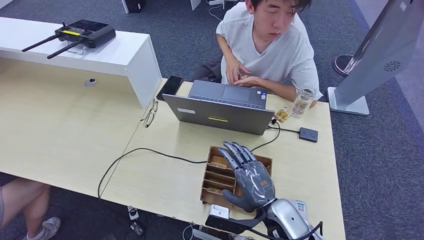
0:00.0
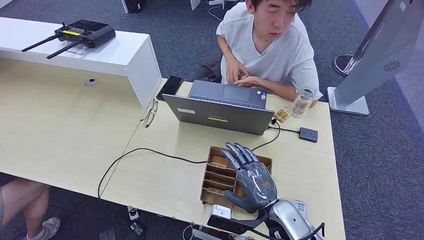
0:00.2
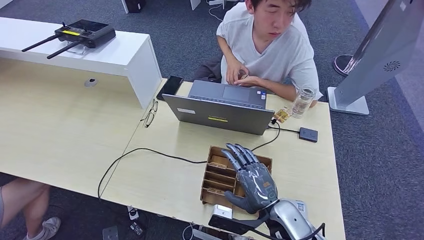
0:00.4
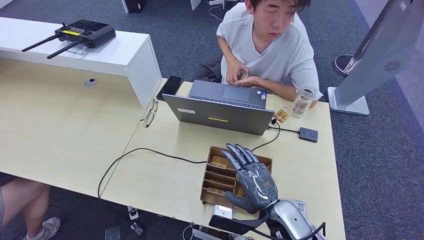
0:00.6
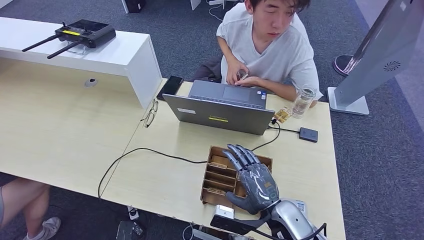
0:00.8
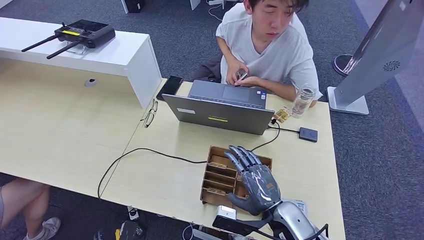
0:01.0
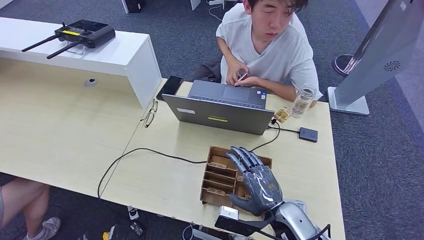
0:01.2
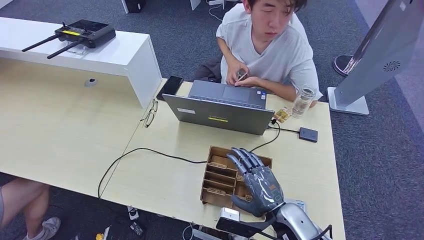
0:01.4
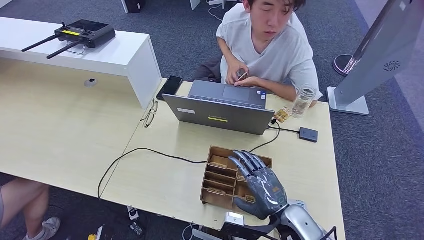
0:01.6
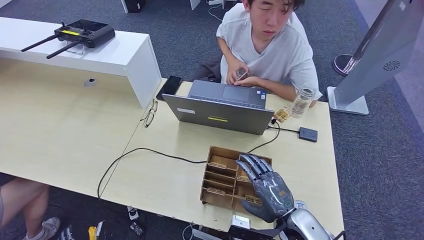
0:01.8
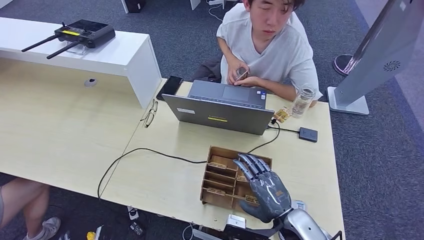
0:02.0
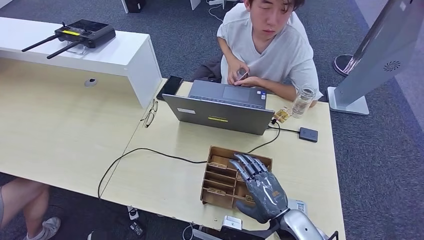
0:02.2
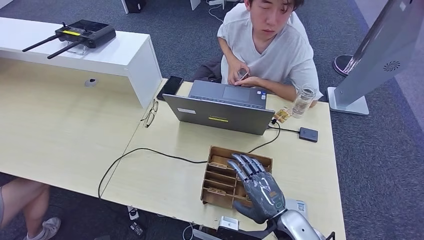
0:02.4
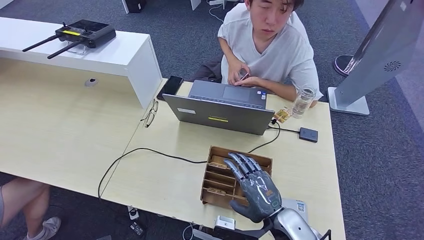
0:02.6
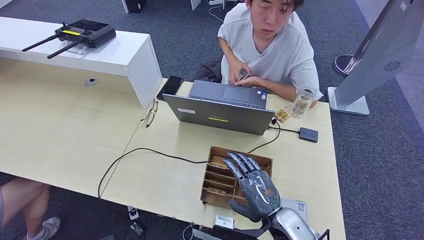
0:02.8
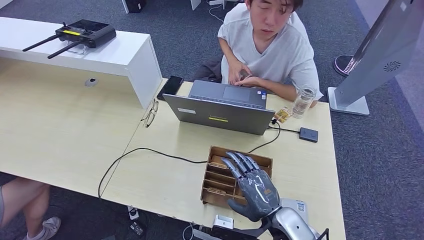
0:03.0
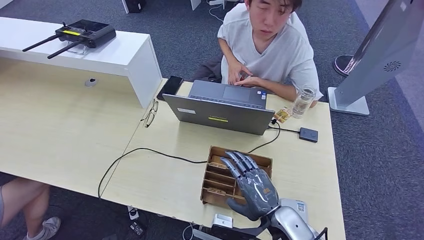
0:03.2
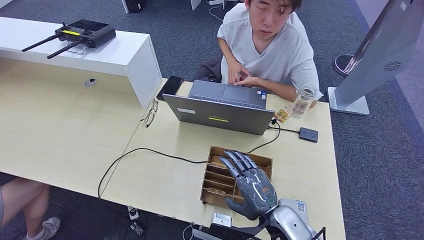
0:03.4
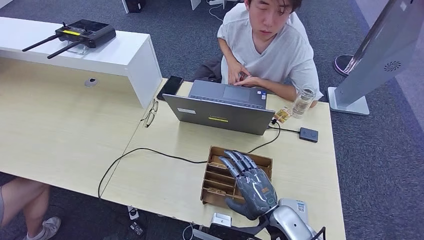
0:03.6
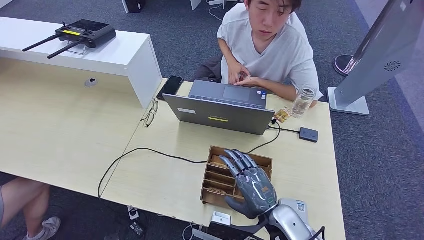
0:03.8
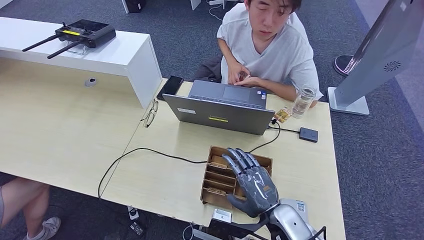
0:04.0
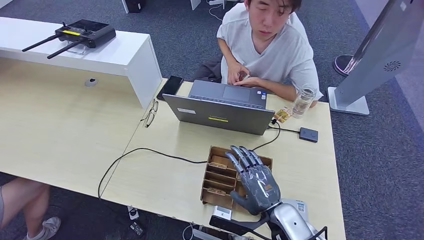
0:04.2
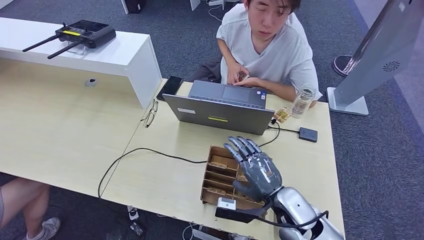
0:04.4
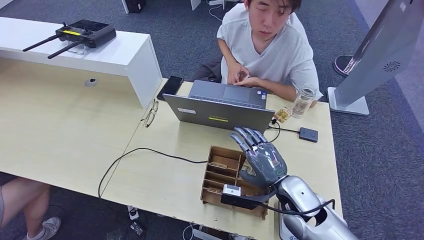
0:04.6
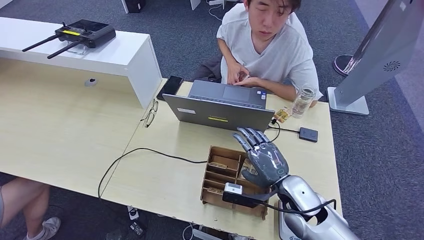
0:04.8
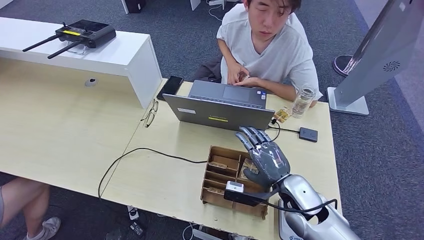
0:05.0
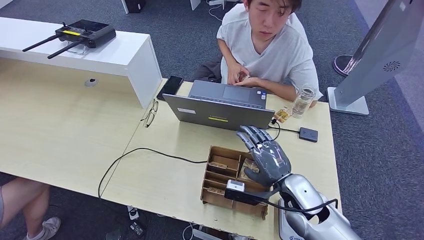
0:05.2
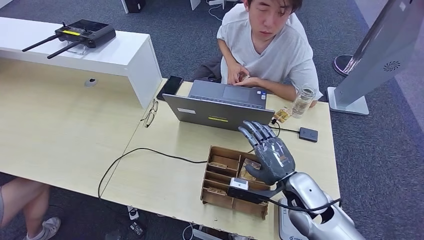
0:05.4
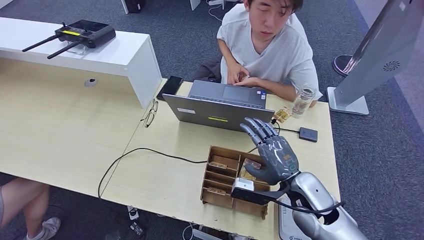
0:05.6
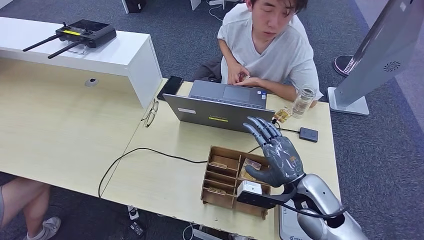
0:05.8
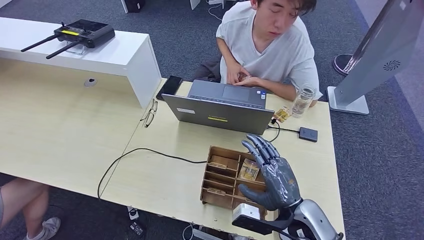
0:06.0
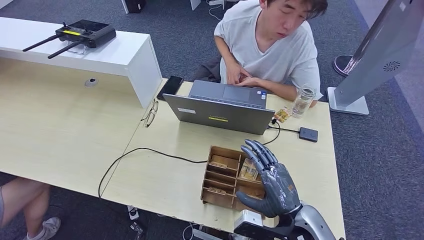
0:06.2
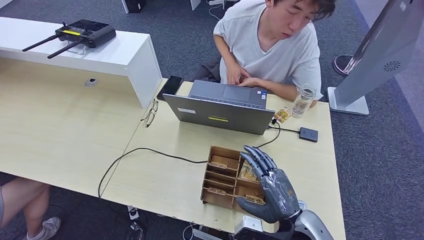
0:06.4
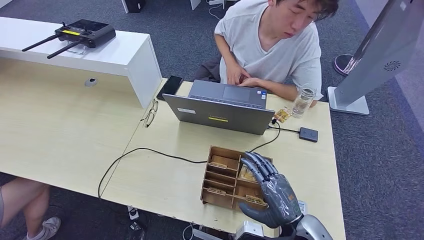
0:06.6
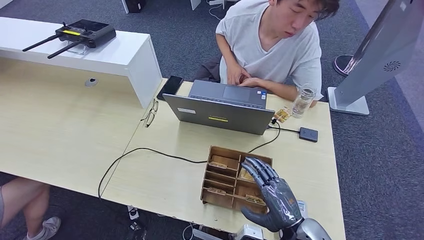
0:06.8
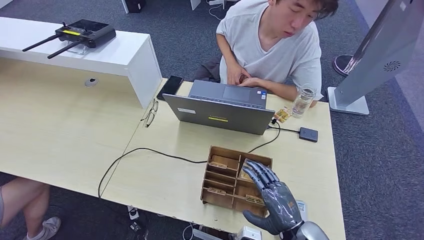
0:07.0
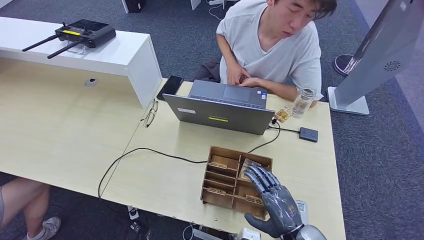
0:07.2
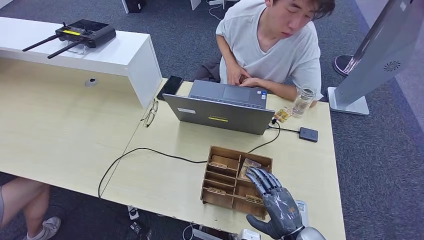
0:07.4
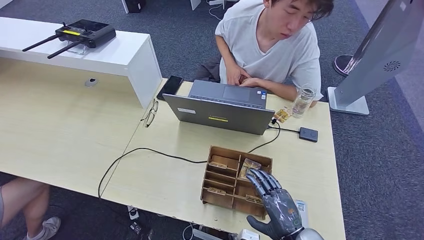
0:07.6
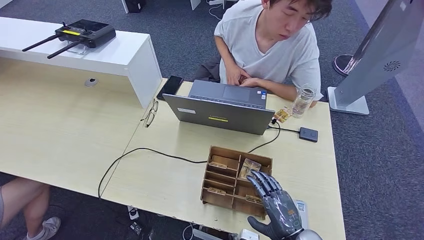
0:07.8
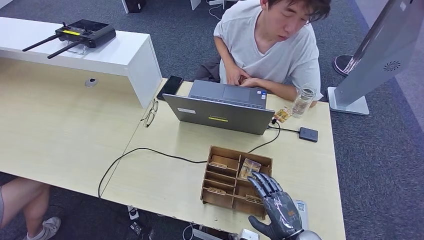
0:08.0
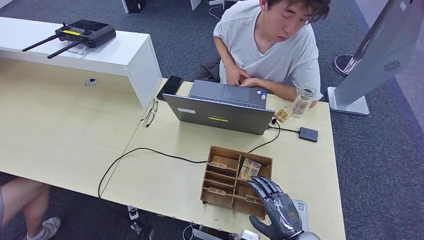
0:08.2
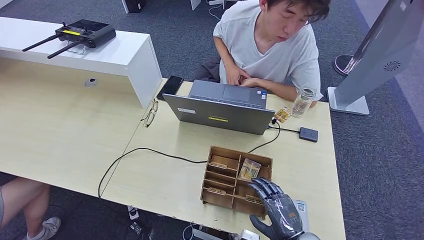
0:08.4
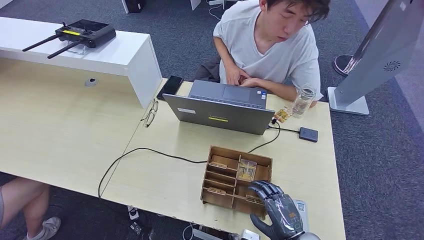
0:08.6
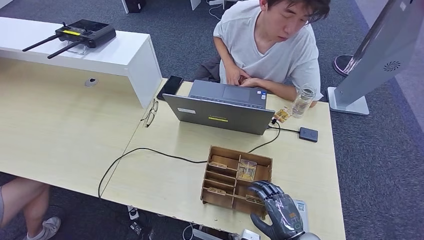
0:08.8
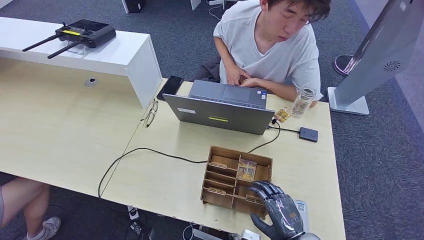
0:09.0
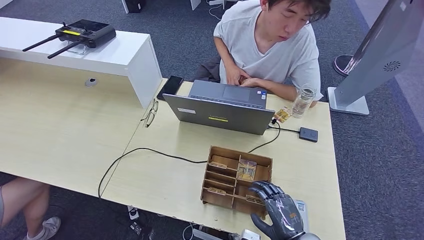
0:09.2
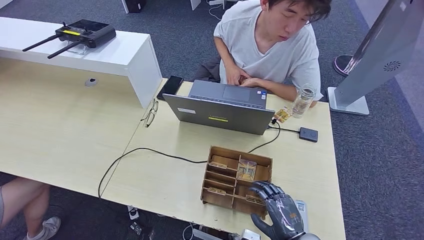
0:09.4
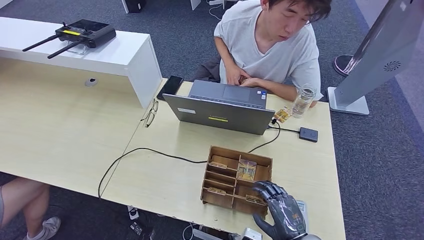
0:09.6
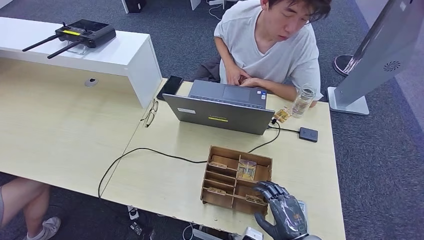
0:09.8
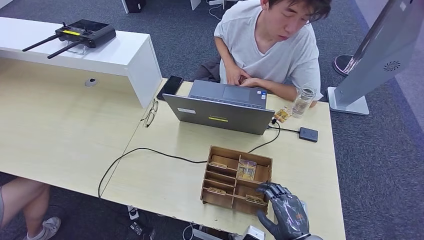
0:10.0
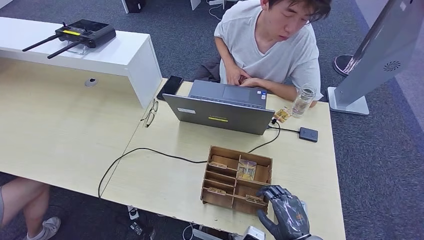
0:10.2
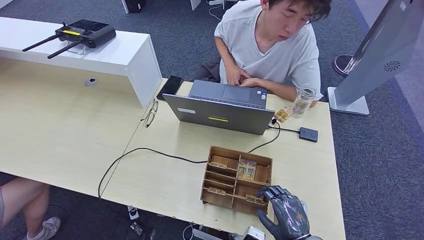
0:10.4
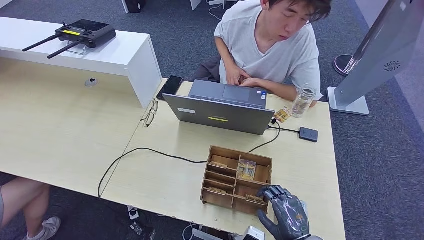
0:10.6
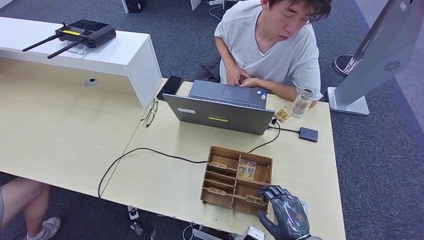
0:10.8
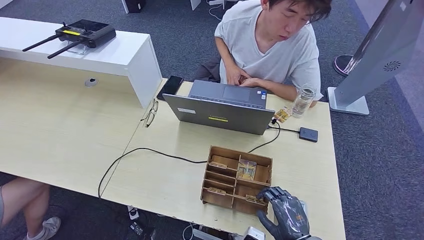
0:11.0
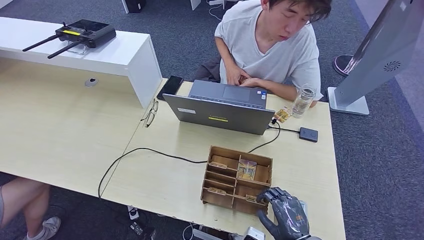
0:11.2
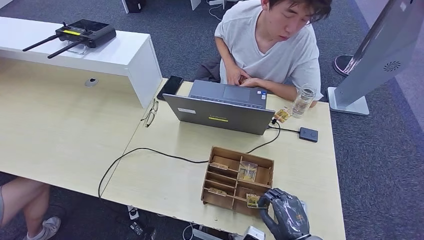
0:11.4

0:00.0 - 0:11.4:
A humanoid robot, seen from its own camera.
0:00.0 - 0:01.4: The left hand changes place by roughly 5 cm.
0:01.4 - 0:02.8: The left hand heads to the right, covering about 5 cm.
0:02.8 - 0:04.2: There are only small adjustments of the hands.
0:04.2 - 0:05.6: The right hand goes some 5 cm forward.
0:05.6 - 0:07.2: The right hand goes roughly 15 cm backward and downward.
0:07.2 - 0:08.6: There are only small adjustments of the hands.
0:08.6 - 0:10.0: The two hands keep their place.
0:10.0 - 0:11.4: Both hands stay about where they are.

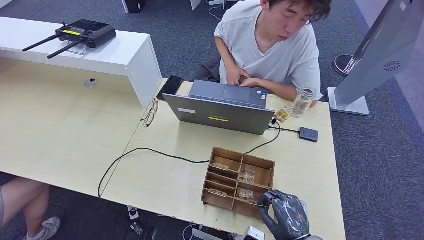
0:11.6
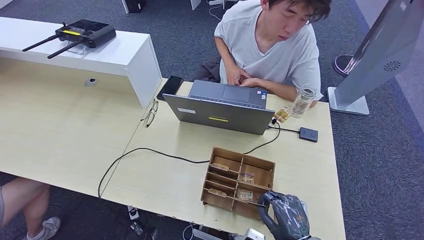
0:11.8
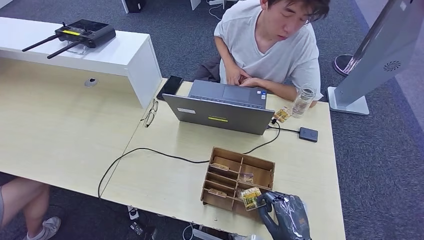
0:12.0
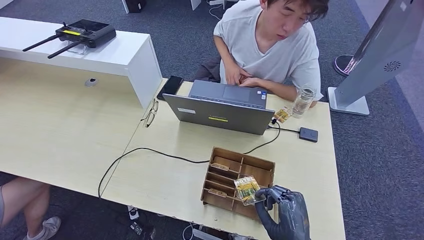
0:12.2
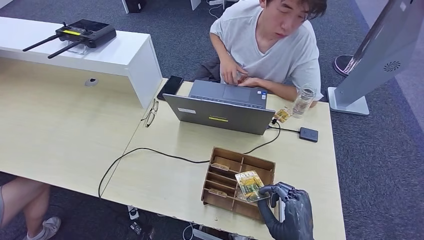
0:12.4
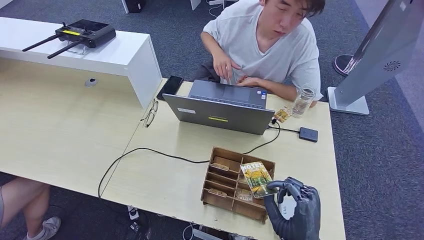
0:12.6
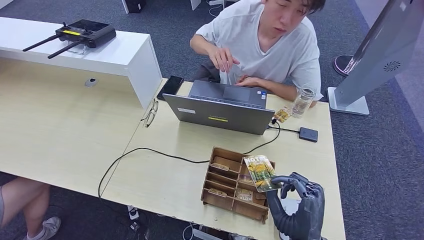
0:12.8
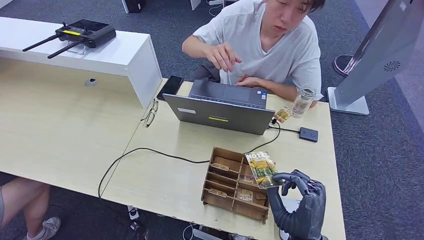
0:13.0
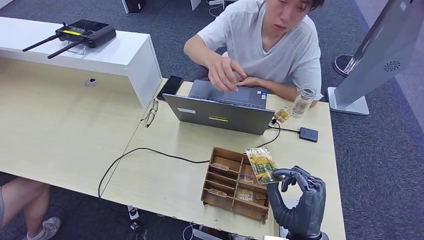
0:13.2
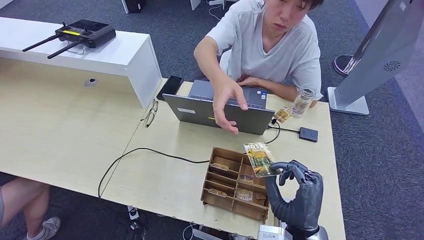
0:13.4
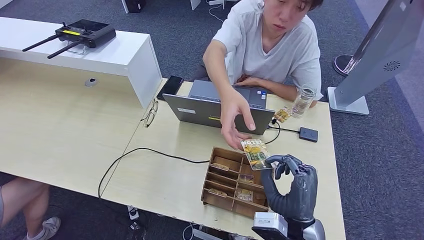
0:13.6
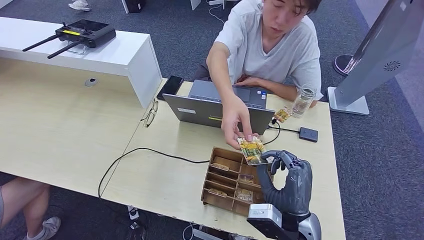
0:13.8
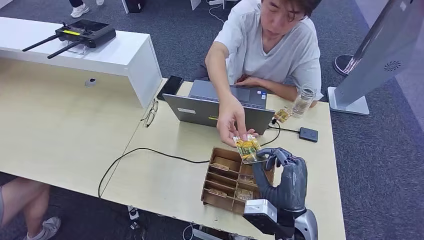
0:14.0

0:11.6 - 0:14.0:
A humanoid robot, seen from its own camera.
Step, 0:13.0 - 0:13.8: Hand the room key to the person.
0:11.6 - 0:12.8: The right hand travels to the left and upward by about 10 cm.
0:12.8 - 0:14.0: The right hand moves roughly 5 cm.
